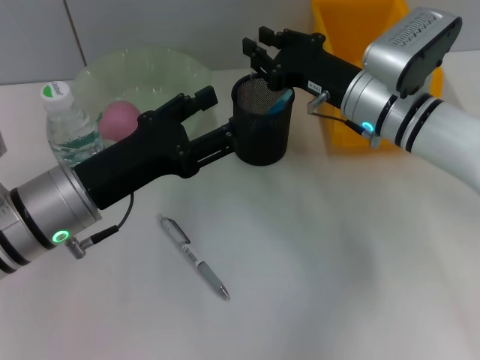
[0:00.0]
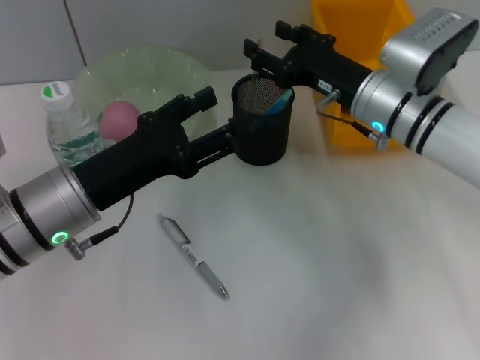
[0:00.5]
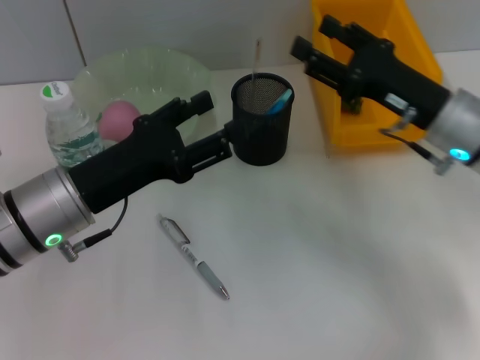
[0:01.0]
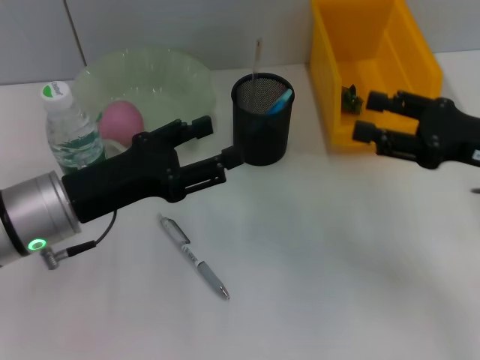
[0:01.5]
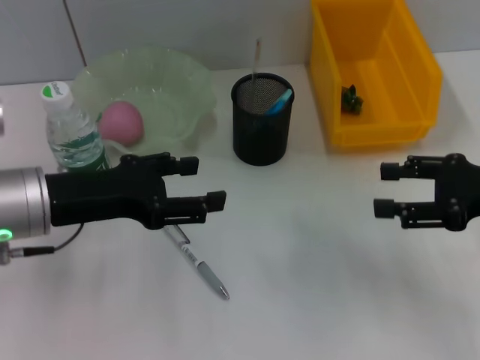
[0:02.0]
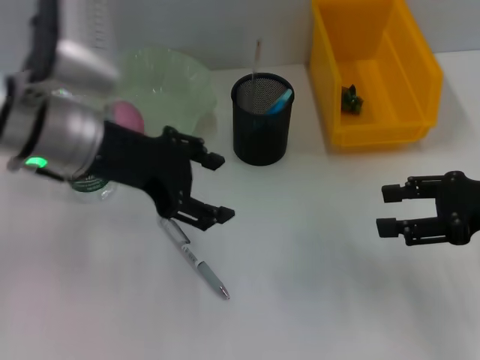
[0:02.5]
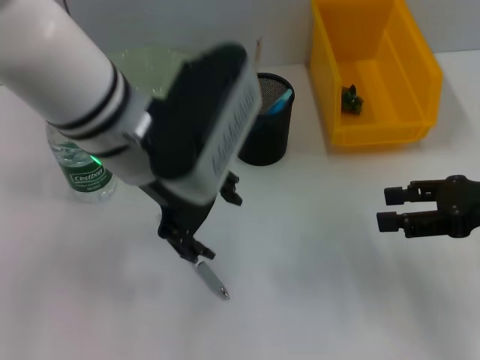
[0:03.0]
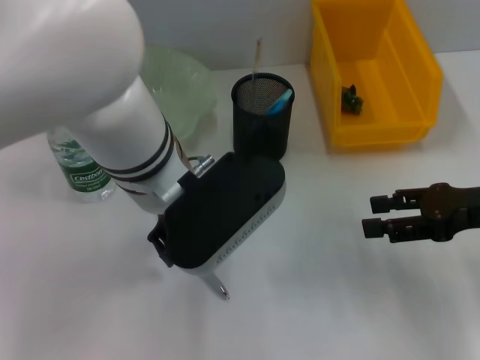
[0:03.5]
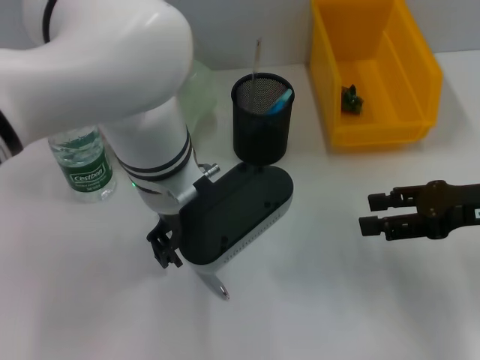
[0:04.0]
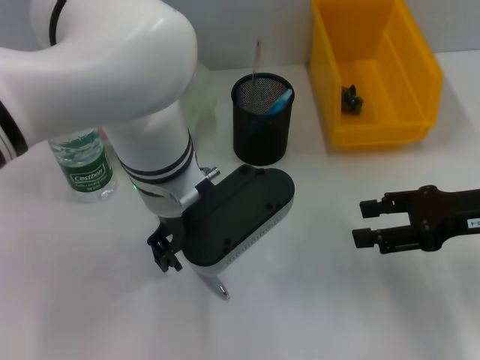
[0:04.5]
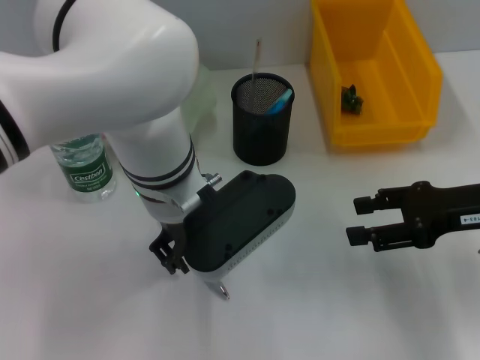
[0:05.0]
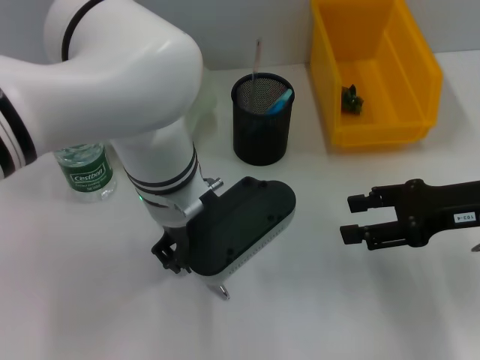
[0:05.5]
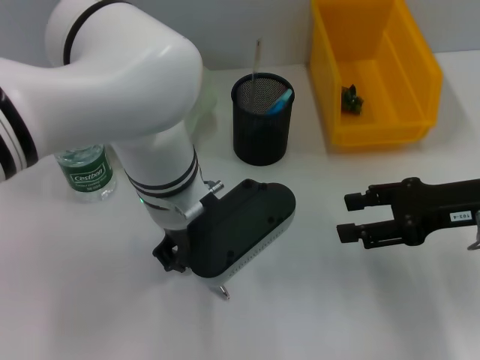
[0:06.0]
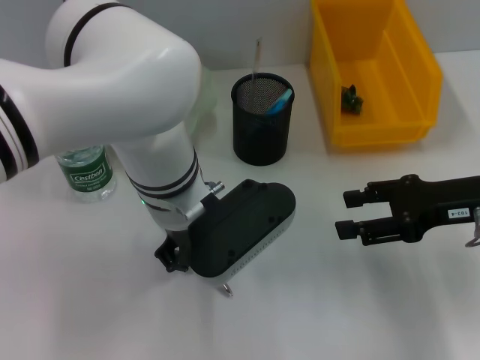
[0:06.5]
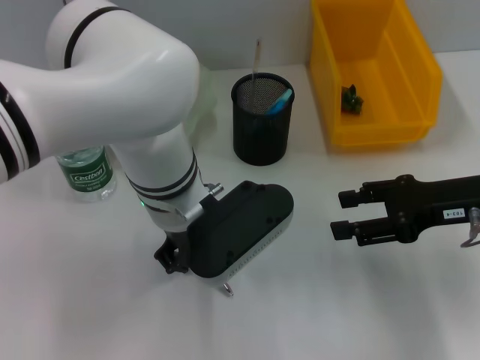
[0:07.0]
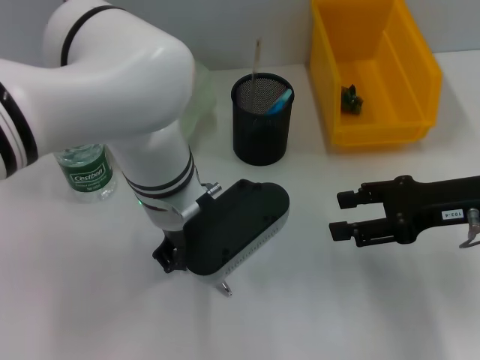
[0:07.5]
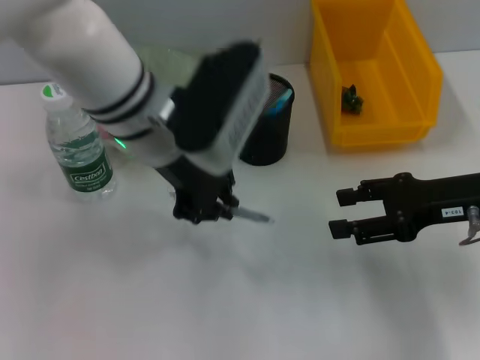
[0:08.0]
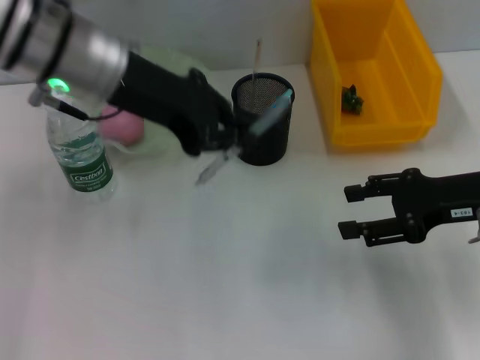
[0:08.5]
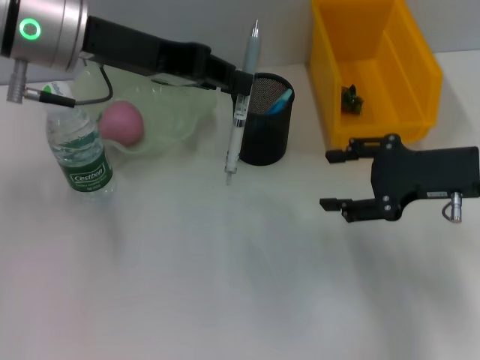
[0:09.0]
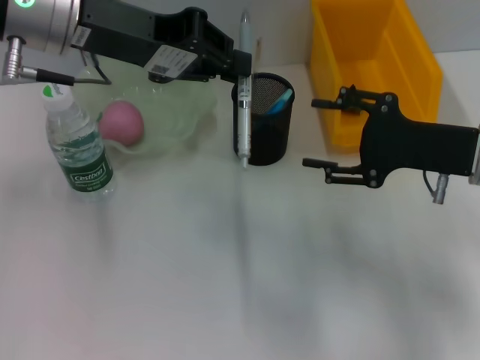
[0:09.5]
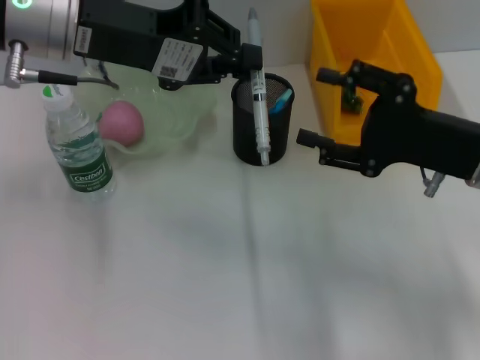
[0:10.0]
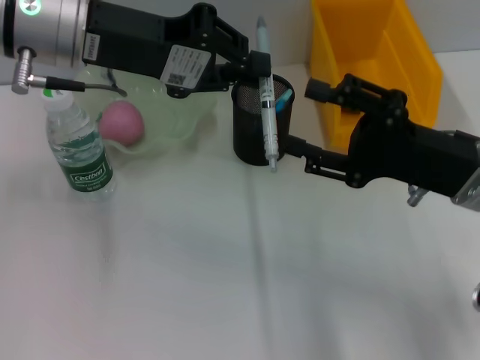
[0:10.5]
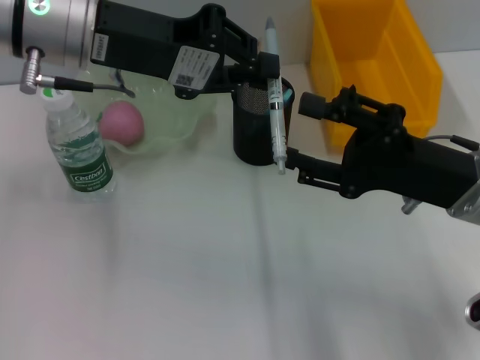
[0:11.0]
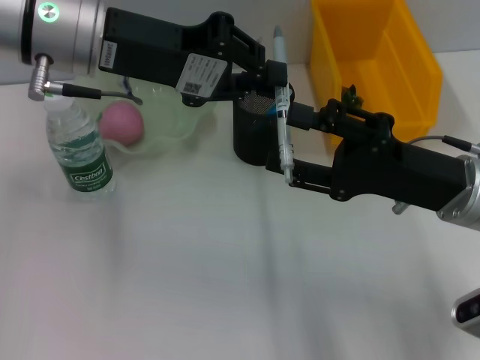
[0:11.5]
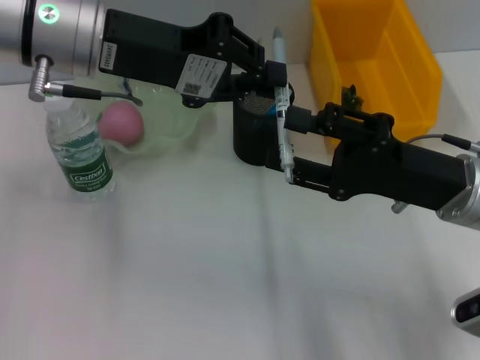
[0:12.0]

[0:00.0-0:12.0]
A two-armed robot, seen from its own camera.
Step, 0:01.0 to 0:07.0: Grab the gray spring-action pen with the left hand.
0:00.0 to 0:02.0: The right gripper shifts roughly 20 cm to the right and backward, and opens up.
0:02.0 to 0:04.0: The left gripper is displaced to the right by roughly 15 cm.
0:04.0 to 0:06.0: The left gripper closes its fingers.
0:06.0 to 0:08.0: The left gripper moves approximately 5 cm, and closes up.
0:08.0 to 0:10.0: The left gripper shifts approximately 10 cm to the left and upward.

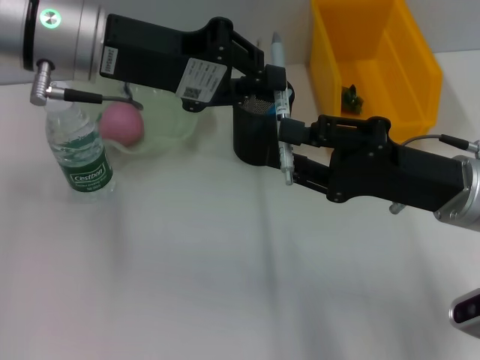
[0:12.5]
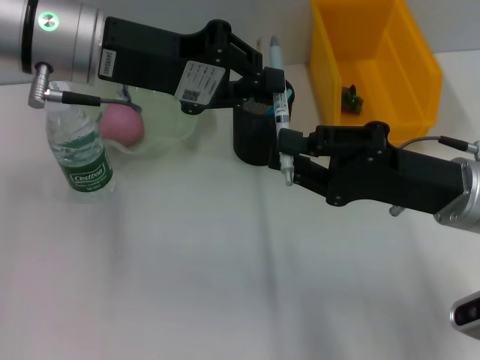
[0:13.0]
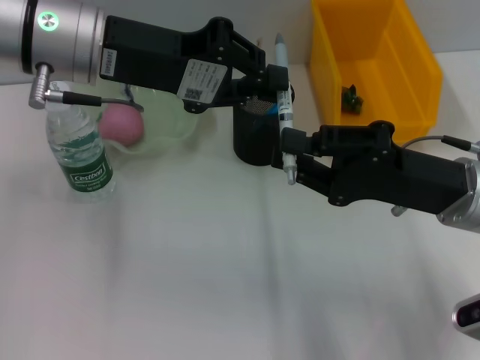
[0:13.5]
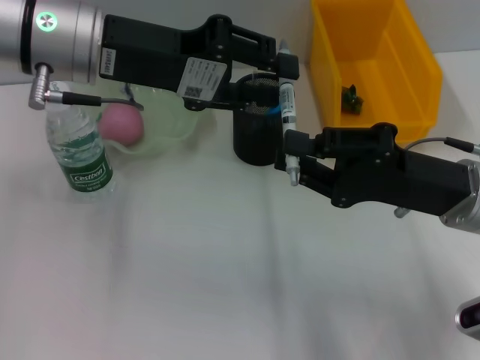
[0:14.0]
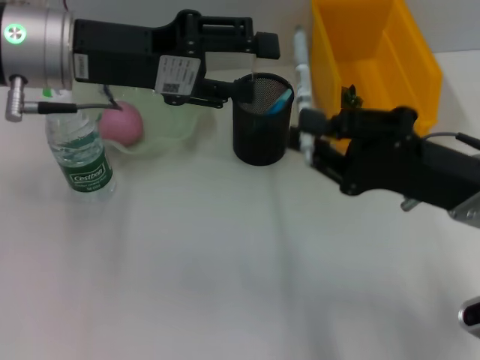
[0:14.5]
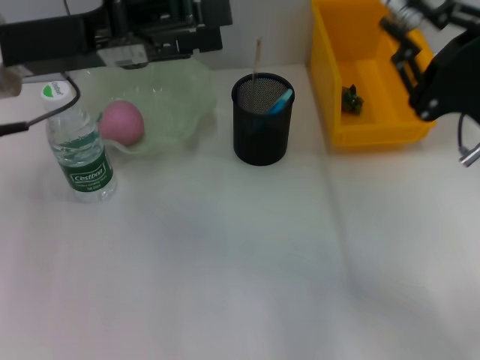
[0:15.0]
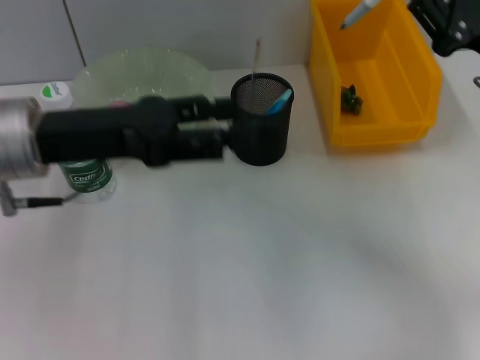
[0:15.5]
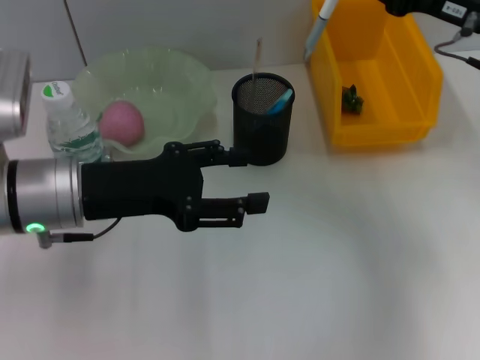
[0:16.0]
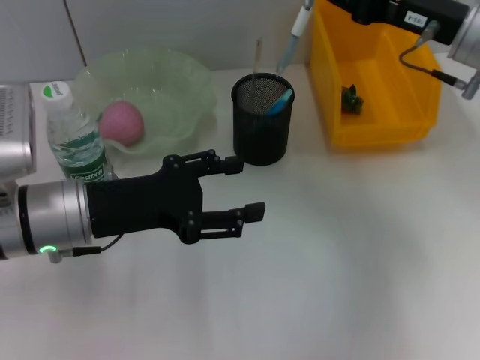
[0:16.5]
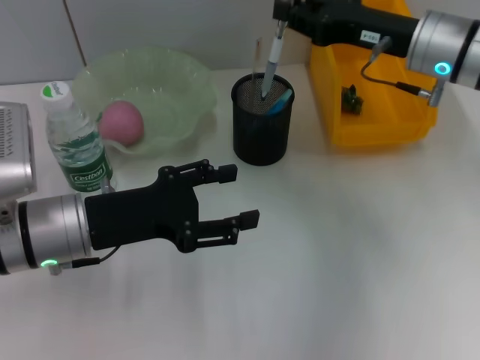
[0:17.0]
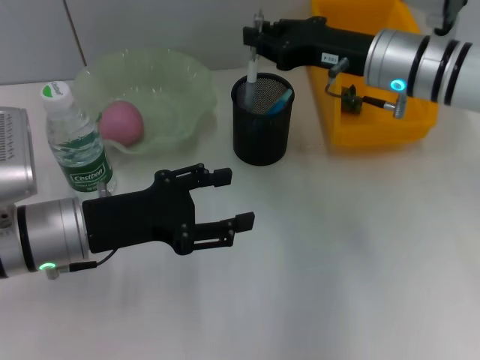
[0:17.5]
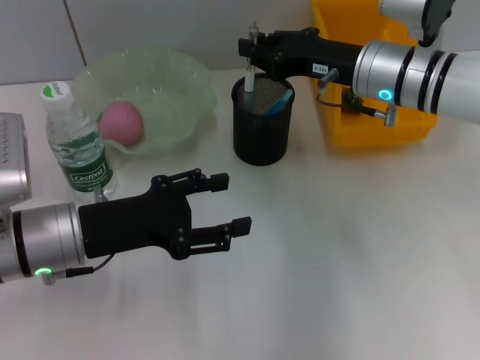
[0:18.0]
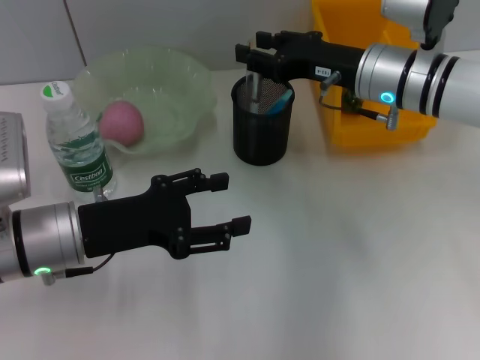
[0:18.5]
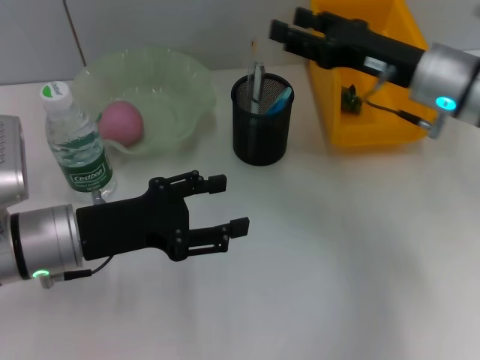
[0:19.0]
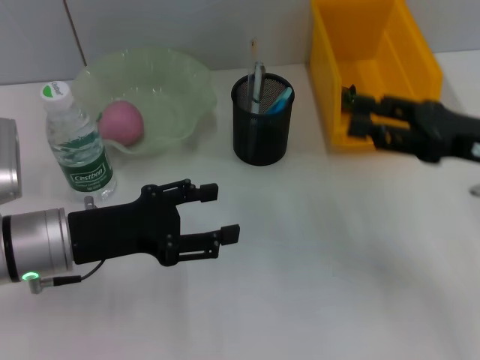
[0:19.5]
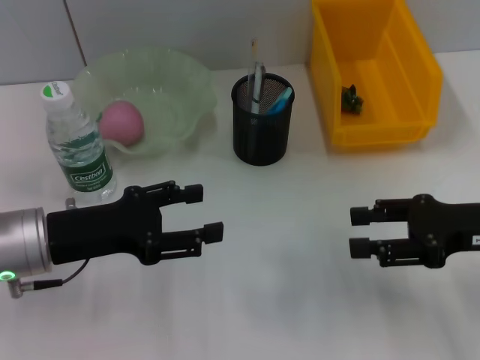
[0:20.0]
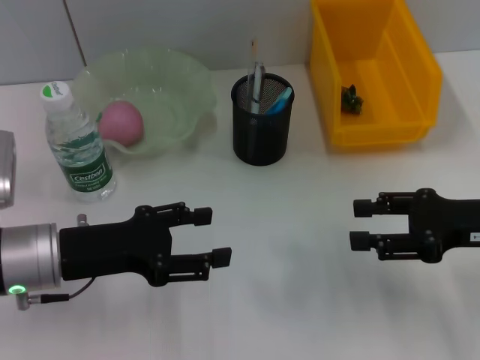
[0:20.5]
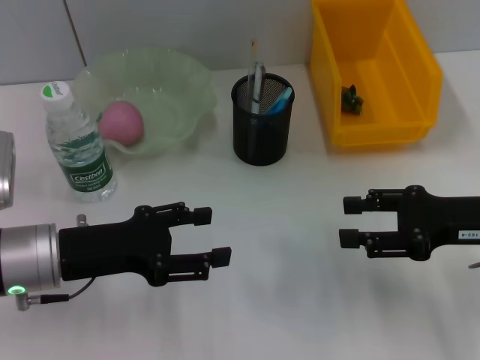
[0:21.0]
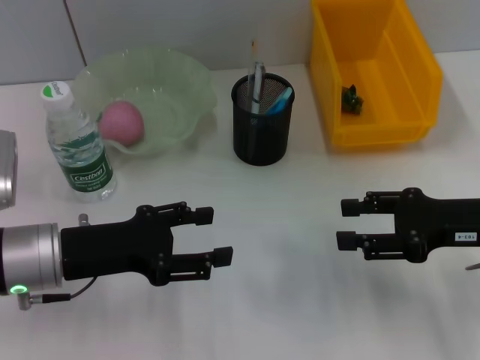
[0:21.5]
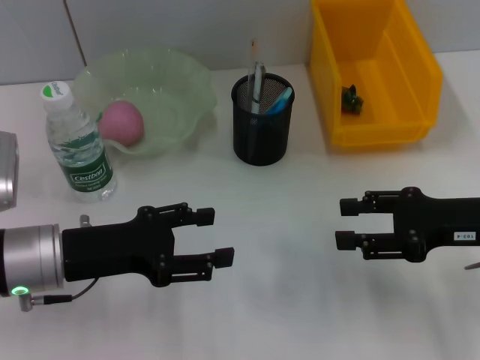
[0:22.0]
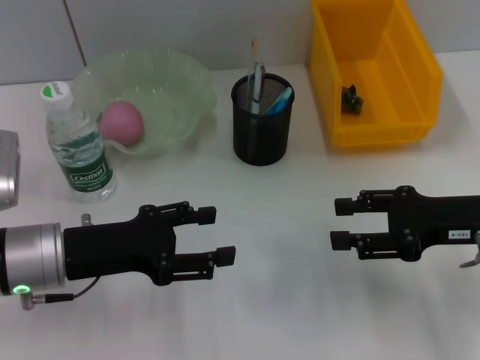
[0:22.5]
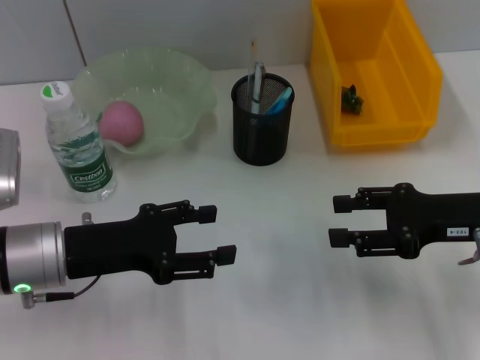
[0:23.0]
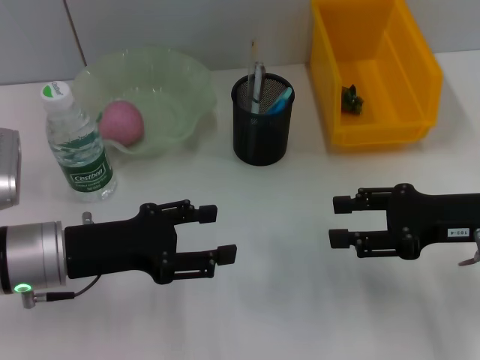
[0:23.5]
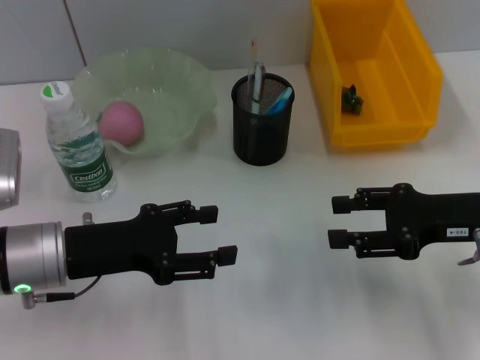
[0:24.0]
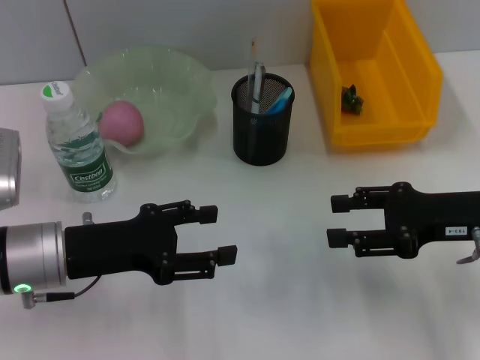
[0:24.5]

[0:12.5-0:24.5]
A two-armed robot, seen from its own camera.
Step, 0:12.5 to 0:14.5: Pass the gray spring-action pen from the left hand to the right hand.
Step, 0:15.0 to 0:19.0: Place the gray spring-action pen into the pen holder with the right hand.
0:12.5 to 0:14.5: The left gripper opens.
0:14.5 to 0:16.5: The left gripper shifts some 15 cm downward and backward. The right gripper moves forward and upward, roughly 15 cm.
0:16.5 to 0:18.5: The right gripper travels to the left by about 5 cm.
0:18.5 to 0:20.5: The right gripper is displaced backward and to the right by approximately 20 cm, and opens.
0:20.5 to 0:22.5: The grippers make only small movements.
0:22.5 to 0:24.5: Neither gripper changes place.

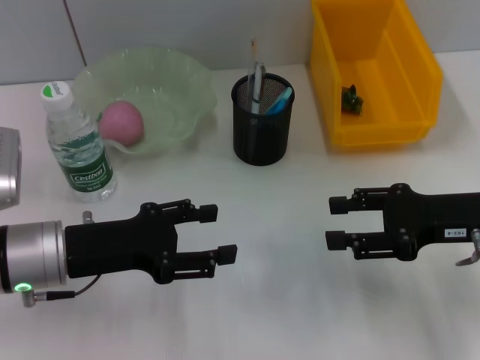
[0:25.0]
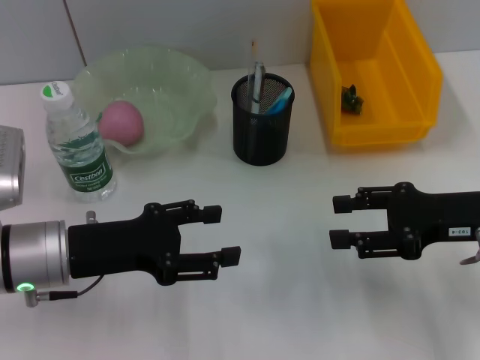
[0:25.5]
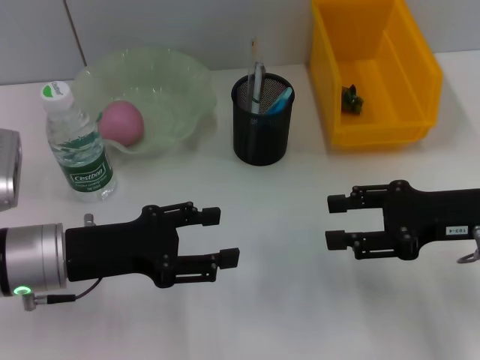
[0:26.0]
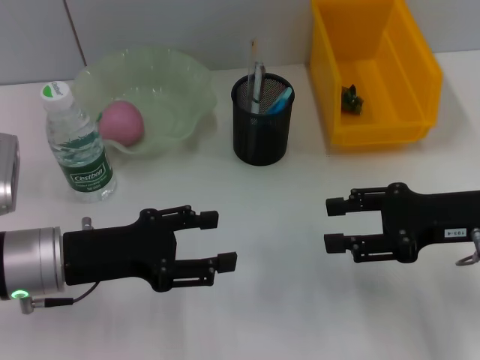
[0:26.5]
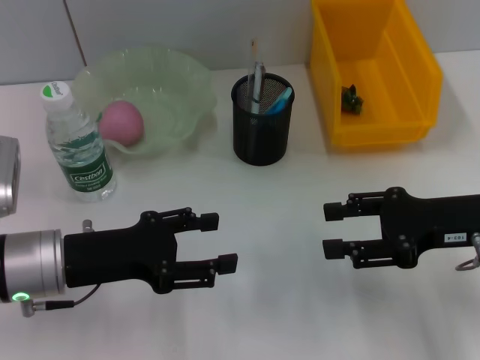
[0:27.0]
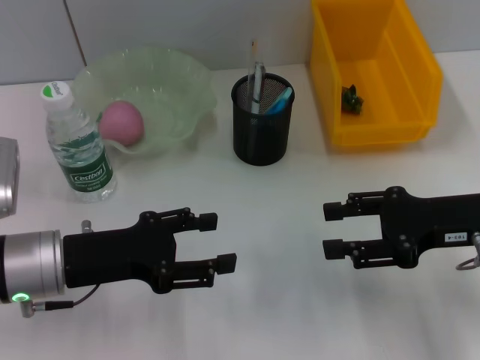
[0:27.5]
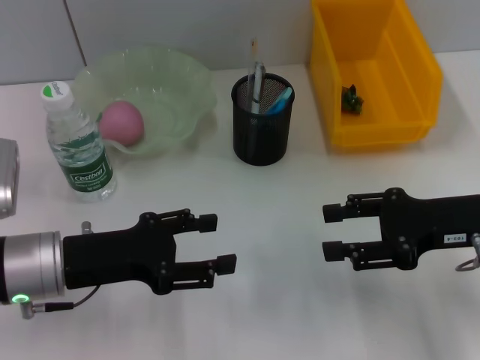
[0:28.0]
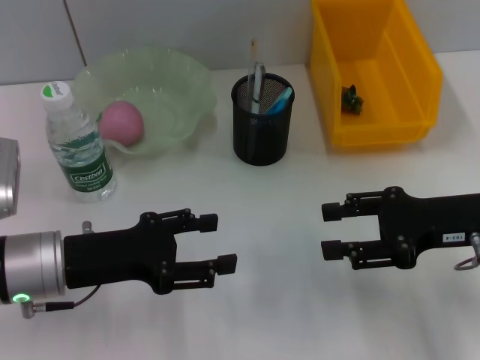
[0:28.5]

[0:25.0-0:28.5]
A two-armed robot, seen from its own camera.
0:25.0 to 0:28.5: Neither gripper changes place.
